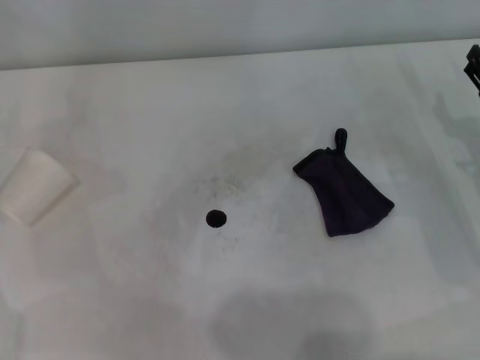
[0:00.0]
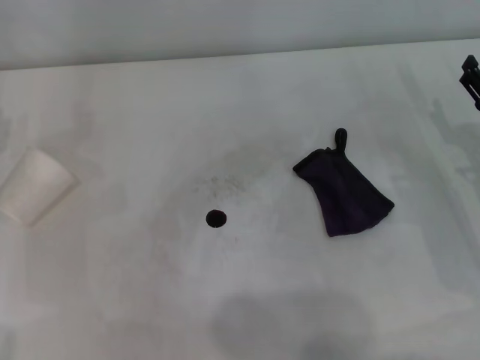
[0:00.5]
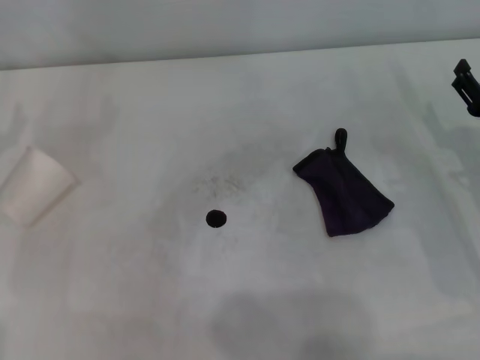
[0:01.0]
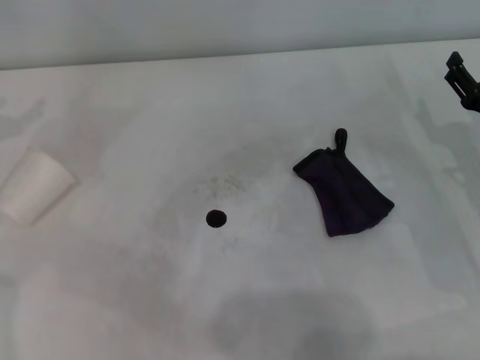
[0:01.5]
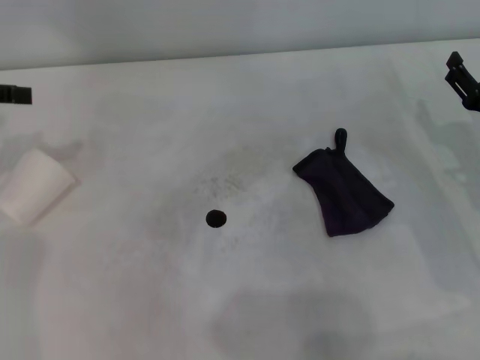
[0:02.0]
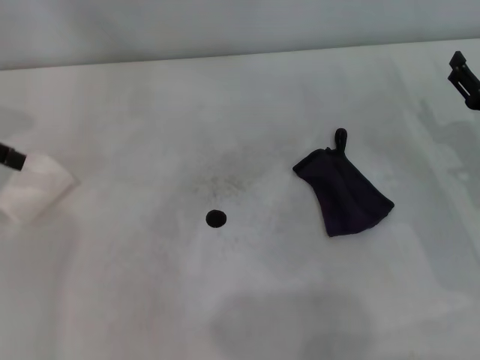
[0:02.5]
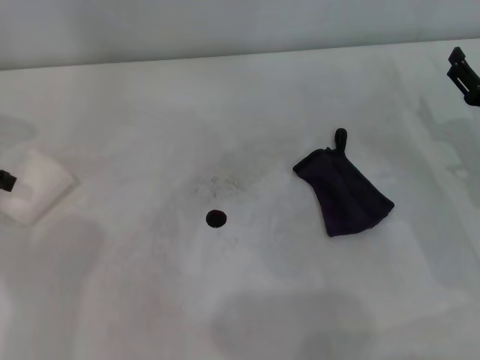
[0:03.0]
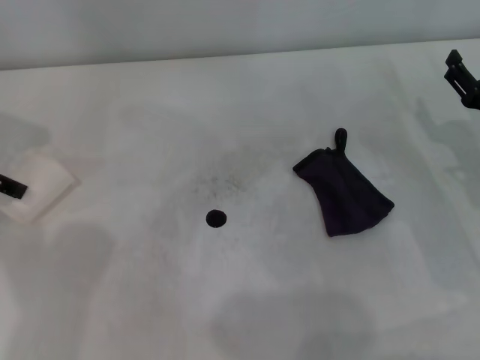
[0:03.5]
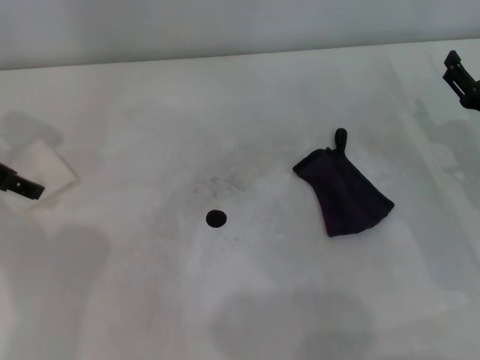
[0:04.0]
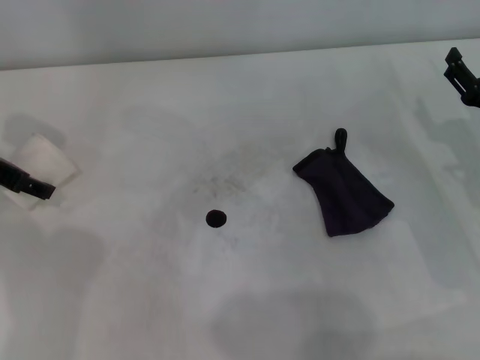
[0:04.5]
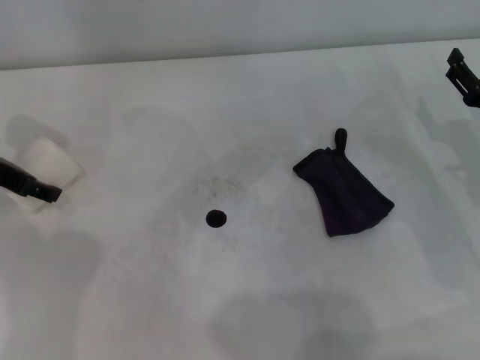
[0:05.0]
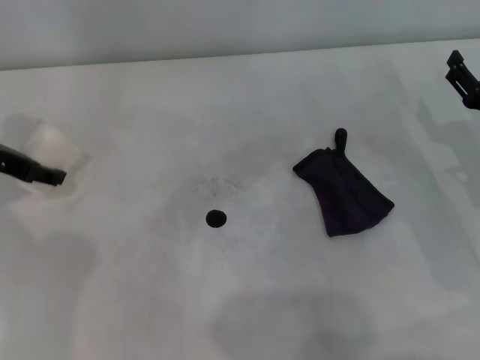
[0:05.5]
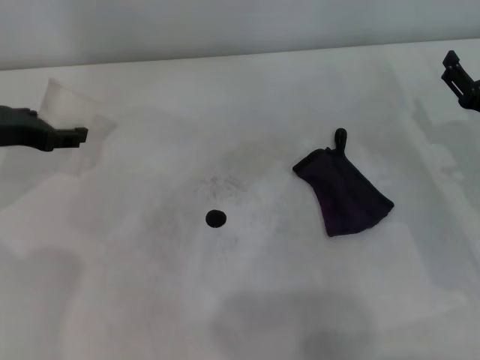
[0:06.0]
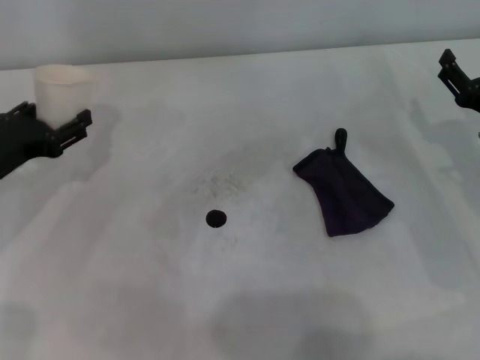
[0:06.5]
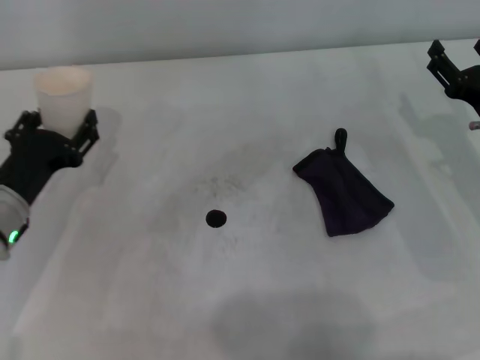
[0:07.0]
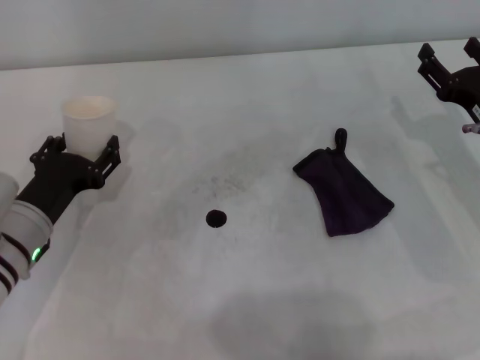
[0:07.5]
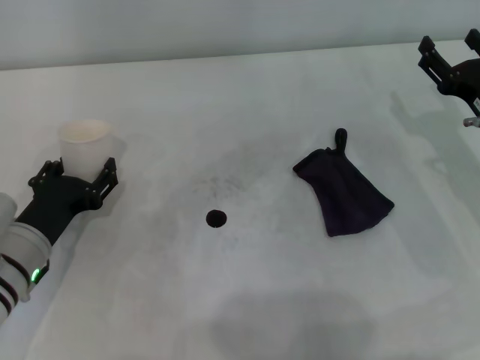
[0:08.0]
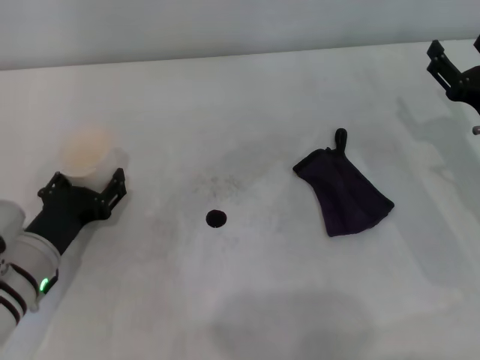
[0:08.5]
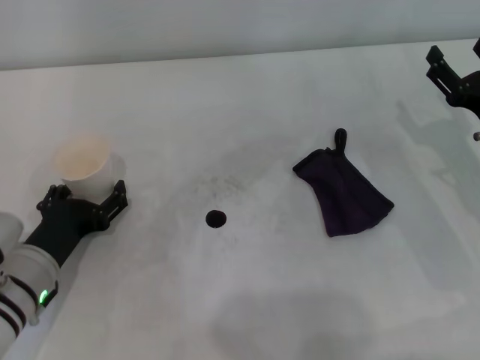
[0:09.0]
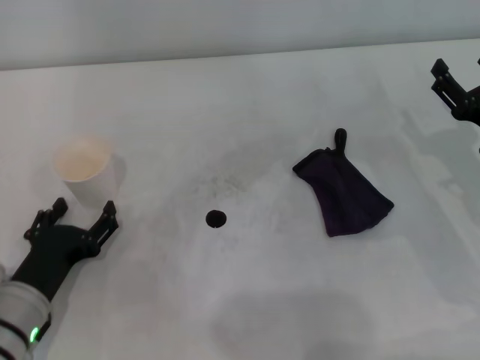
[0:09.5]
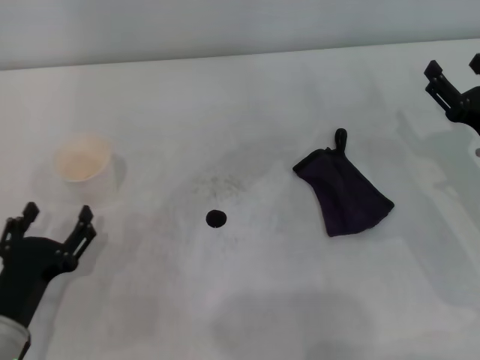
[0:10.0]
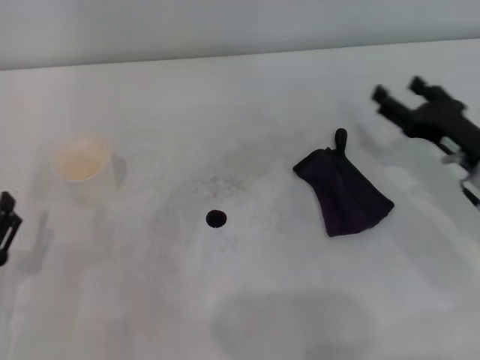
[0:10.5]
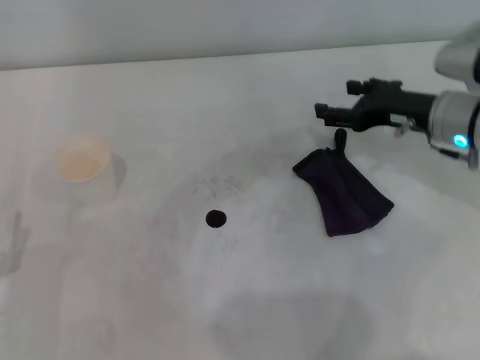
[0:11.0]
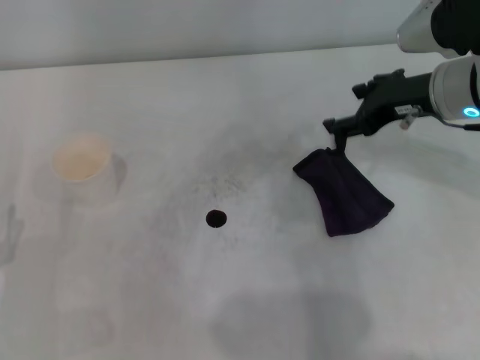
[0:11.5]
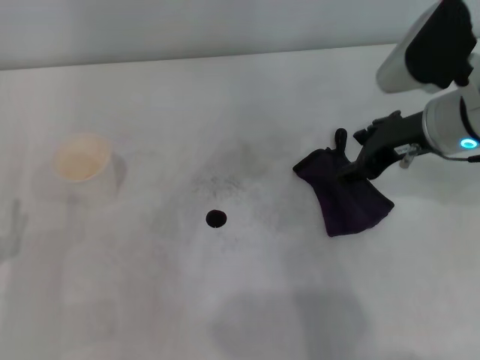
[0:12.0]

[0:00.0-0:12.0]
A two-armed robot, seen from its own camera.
Step, 0:00.0 to 0:05.0: Grasp the paper cup with the left gripper.
Step, 0:05.5 to 0:08.5: Stand the paper cup upright with the left gripper.
0:02.0 to 0:04.0: The left gripper heads to the right, covering approximately 5 cm.
0:04.0 to 0:06.0: The left gripper closes.
0:06.0 to 0:08.0: The left gripper travels downward, backward and to the right by about 15 cm.
0:08.0 to 0:10.0: The left gripper travels backward by roughly 10 cm, and opens.
0:10.0 to 0:12.0: The right gripper heads upward, to the left and forward, covering approximately 15 cm; the left gripper shifts some 5 cm to the left.

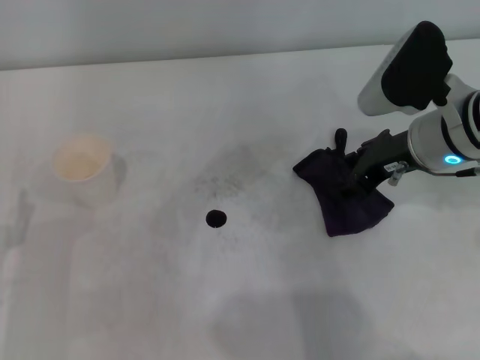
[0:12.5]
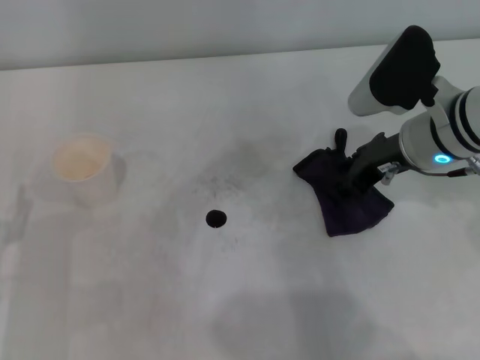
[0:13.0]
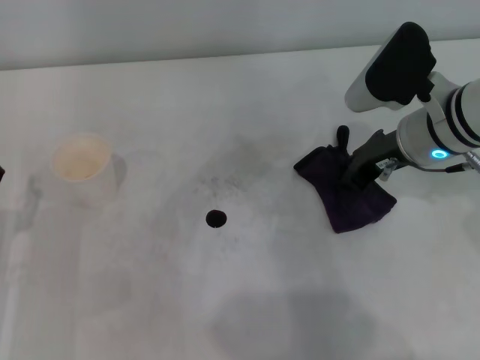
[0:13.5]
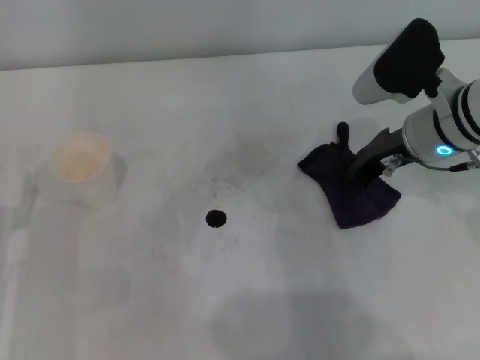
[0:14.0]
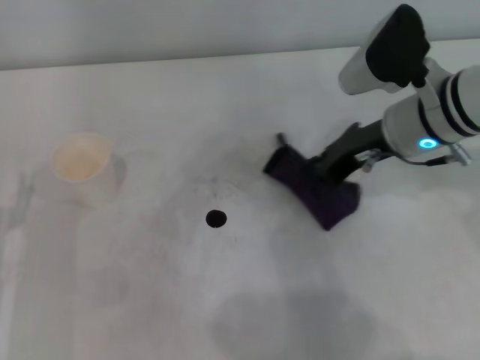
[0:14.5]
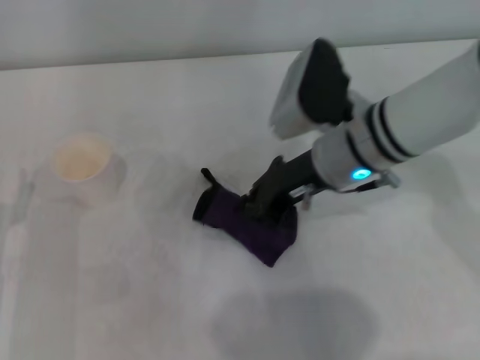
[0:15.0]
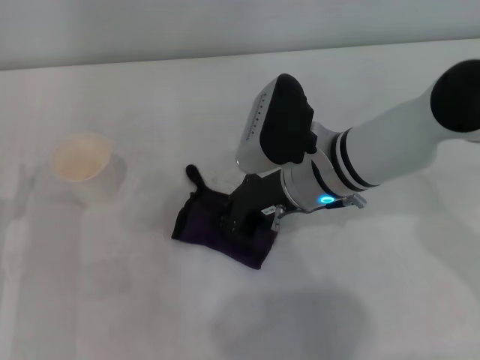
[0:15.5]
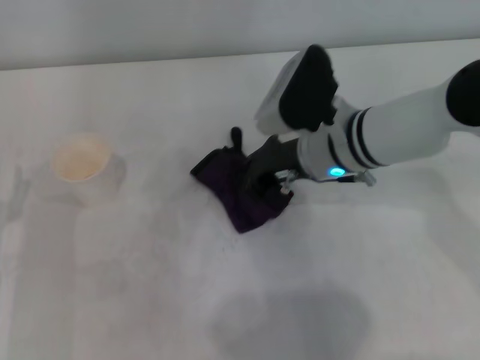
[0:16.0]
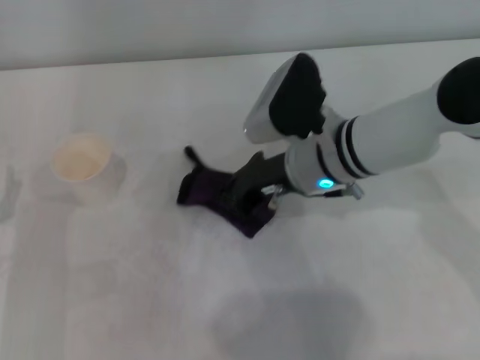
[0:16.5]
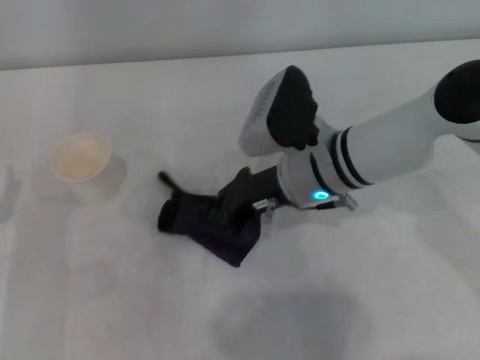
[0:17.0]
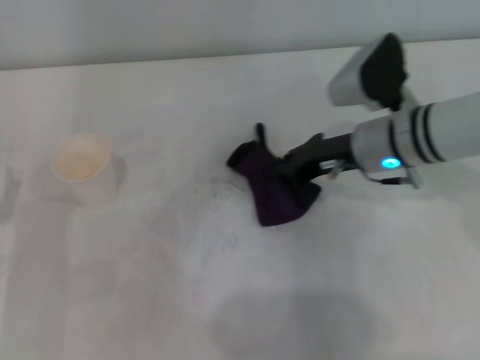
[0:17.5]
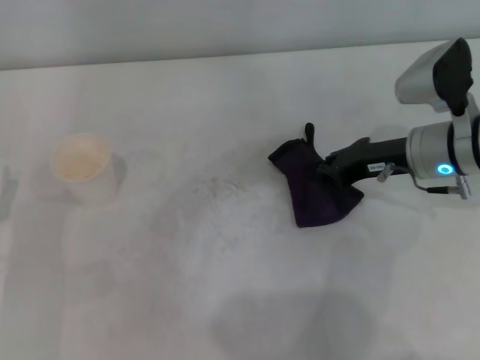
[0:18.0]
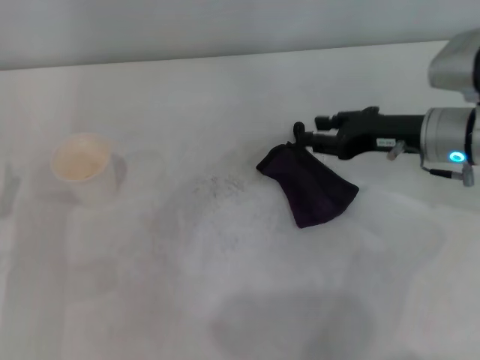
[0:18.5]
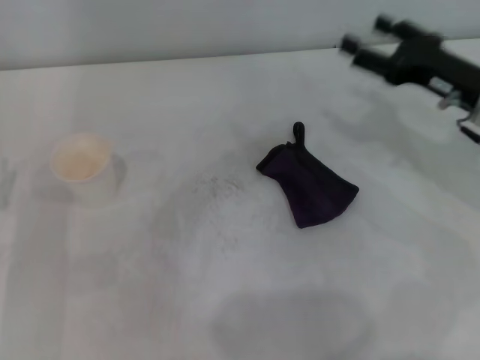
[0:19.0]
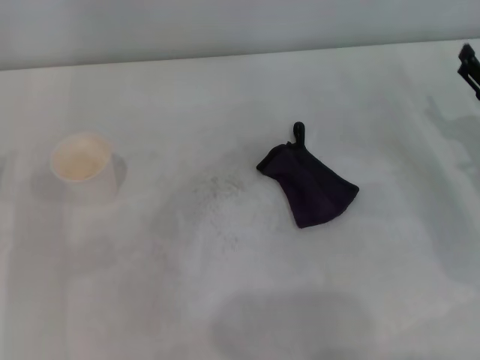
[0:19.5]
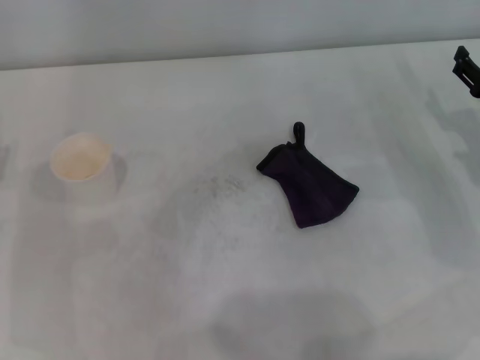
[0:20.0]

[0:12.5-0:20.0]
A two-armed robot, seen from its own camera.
Step, 0:14.0 to 0:17.0: Wipe the stains off the table with the right gripper.
Step, 0:17.5 to 0:18.0: Place the rag on the table with the right gripper.
0:12.5 to 0:14.5: The right gripper closes up.
0:14.5 to 0:16.5: The right gripper travels to the left by roughly 10 cm.
0:16.5 to 0:18.0: The right gripper shifts approximately 15 cm to the right.
0:18.0 to 0:20.0: The left gripper ends up about 5 cm from where it was. The right gripper heads to the right, covering about 10 cm, and opens its fingers.
